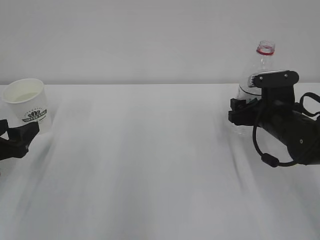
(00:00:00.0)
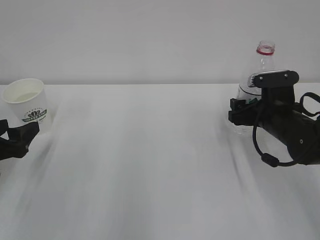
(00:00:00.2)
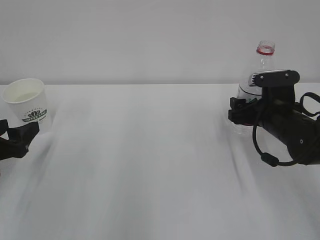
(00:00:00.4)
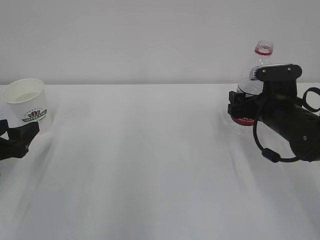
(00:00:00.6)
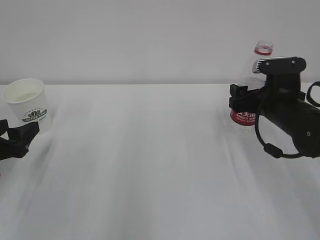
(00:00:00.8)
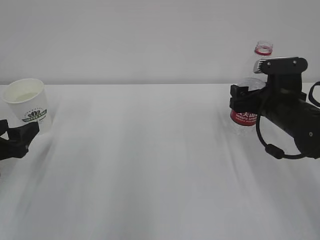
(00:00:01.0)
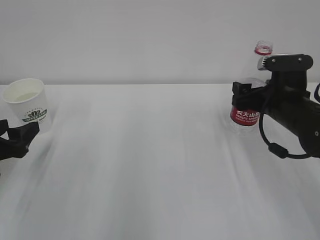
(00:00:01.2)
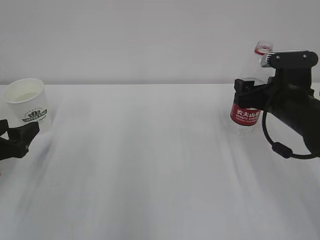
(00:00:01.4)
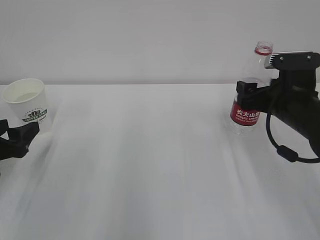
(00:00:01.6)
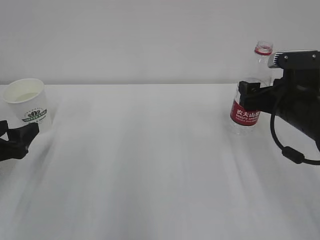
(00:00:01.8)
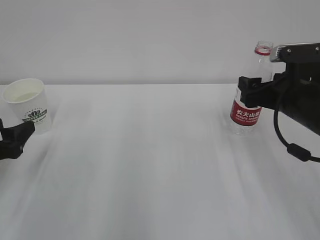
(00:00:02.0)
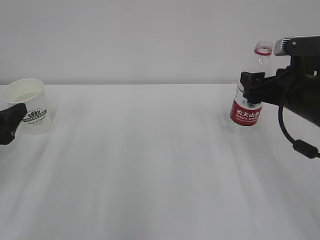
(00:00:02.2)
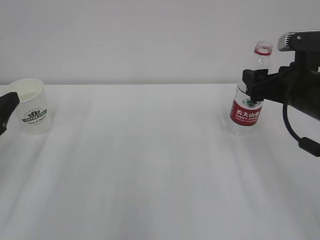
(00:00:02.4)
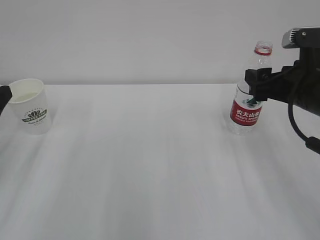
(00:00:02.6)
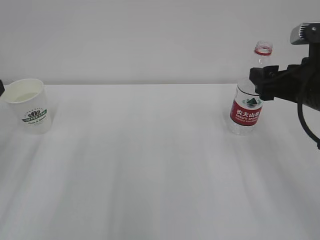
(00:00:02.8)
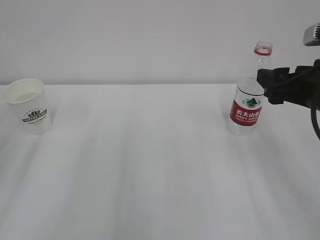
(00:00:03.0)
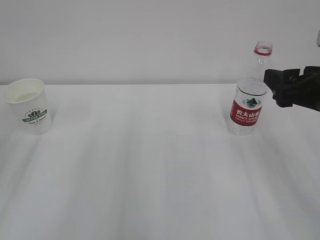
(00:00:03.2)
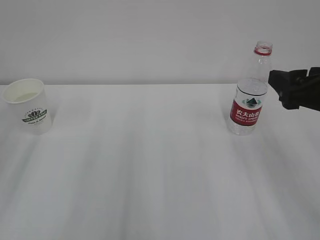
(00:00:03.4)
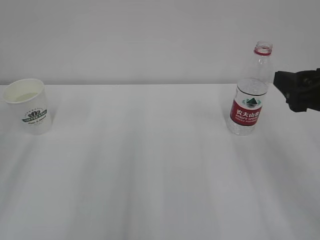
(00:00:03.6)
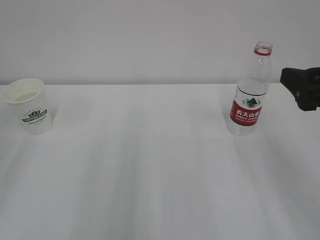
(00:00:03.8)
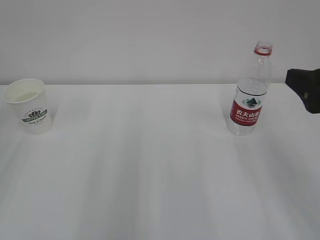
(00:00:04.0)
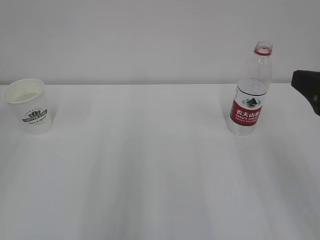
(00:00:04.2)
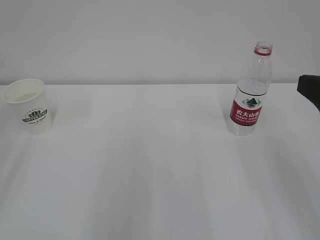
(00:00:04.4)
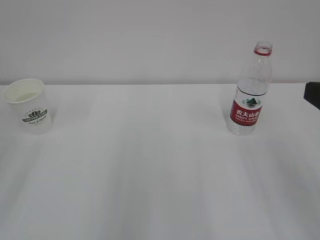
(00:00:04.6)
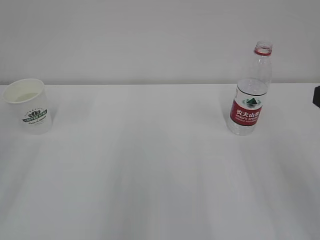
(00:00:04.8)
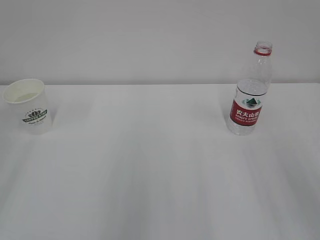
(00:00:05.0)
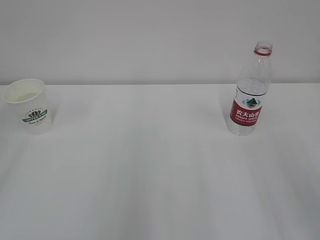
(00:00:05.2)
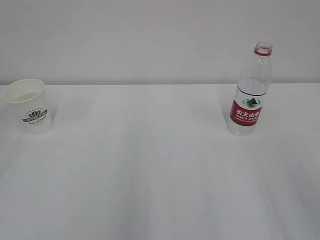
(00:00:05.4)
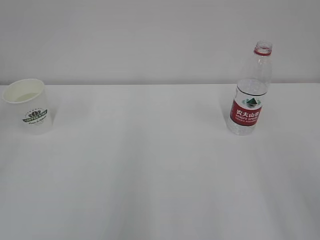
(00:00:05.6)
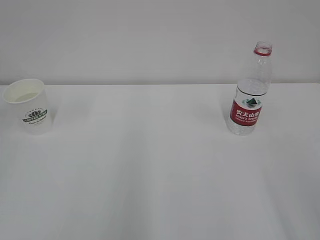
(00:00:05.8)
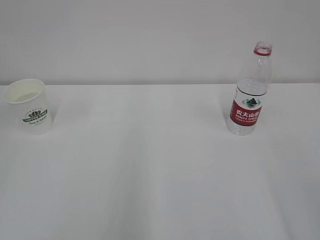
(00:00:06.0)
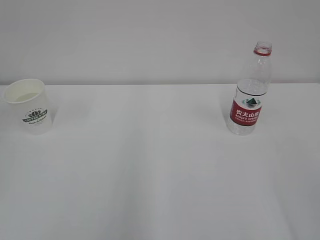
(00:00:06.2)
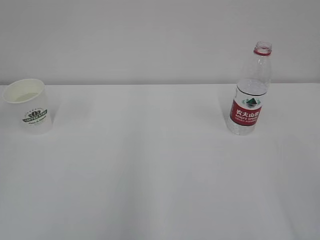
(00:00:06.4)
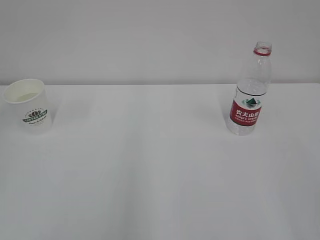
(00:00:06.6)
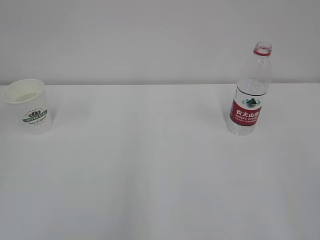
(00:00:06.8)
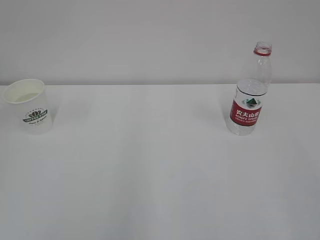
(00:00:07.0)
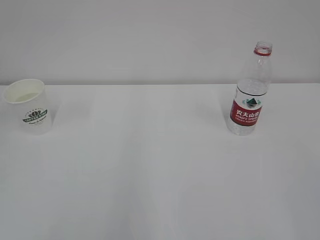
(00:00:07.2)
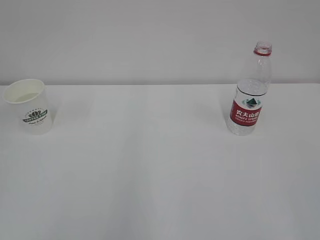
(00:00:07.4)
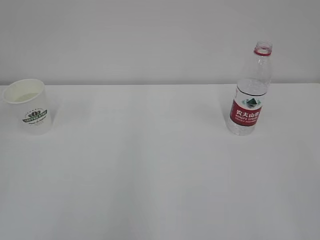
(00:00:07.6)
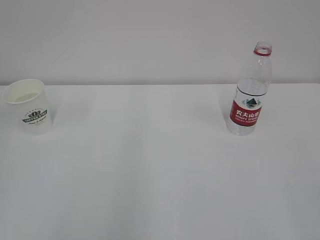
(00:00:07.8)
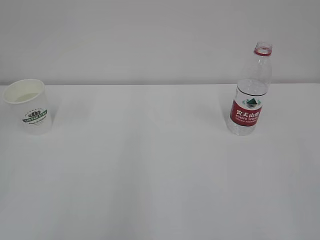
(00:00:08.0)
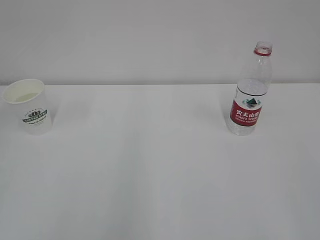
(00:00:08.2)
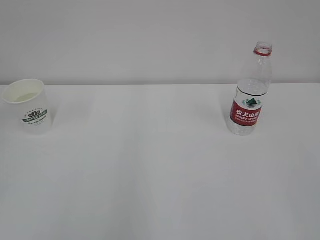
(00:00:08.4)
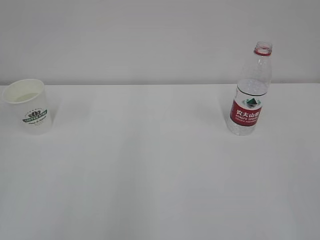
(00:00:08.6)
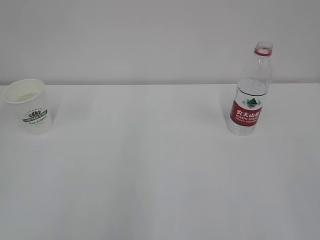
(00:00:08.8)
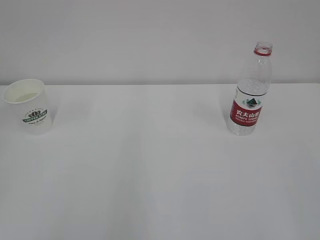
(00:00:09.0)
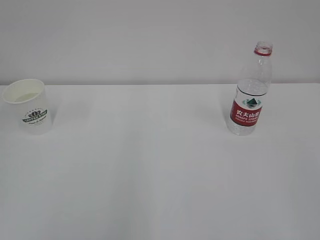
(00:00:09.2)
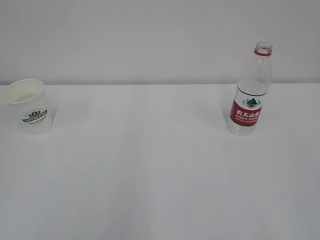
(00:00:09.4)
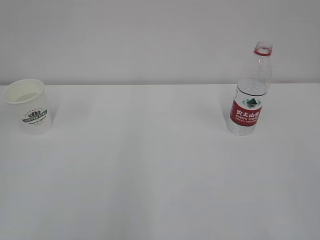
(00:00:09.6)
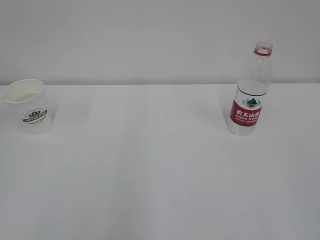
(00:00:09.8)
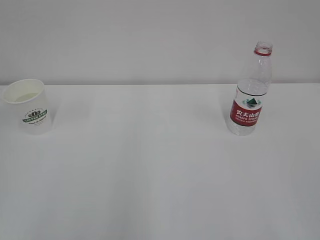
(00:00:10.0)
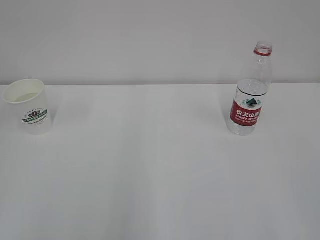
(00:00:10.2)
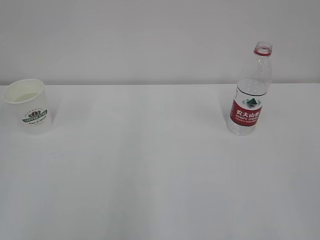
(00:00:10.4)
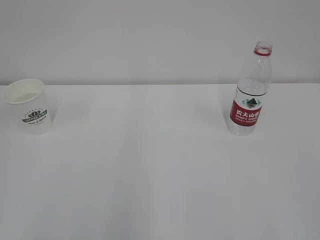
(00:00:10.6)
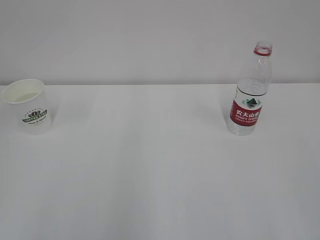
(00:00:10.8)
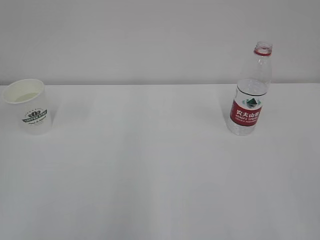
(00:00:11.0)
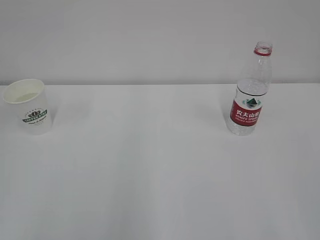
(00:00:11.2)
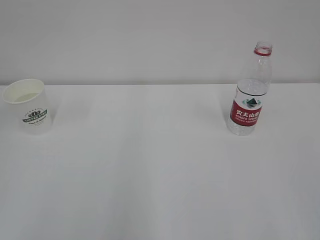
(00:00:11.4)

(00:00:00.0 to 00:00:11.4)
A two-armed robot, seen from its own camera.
00:00:00.0 - 00:00:01.4: There are only small adjustments of the grippers.
00:00:01.4 - 00:00:02.8: The right gripper moves upward and backward, some 10 cm. The left gripper shifts approximately 10 cm upward.
00:00:02.8 - 00:00:04.2: The right gripper shifts roughly 10 cm backward and upward.
00:00:04.2 - 00:00:05.6: The right gripper heads backward, covering roughly 10 cm.
00:00:07.2 - 00:00:08.6: Both grippers stay put.
00:00:10.0 - 00:00:11.4: Both grippers stay put.
